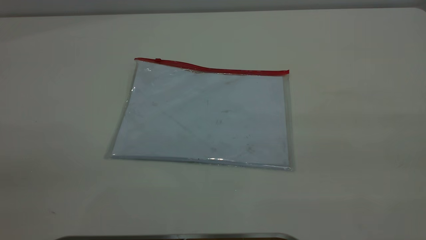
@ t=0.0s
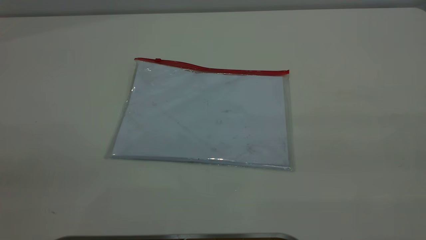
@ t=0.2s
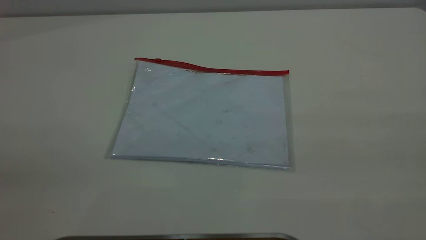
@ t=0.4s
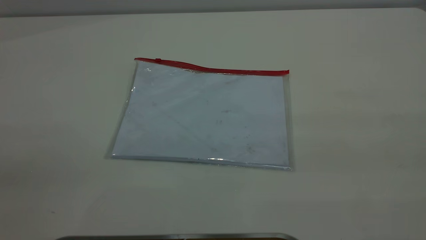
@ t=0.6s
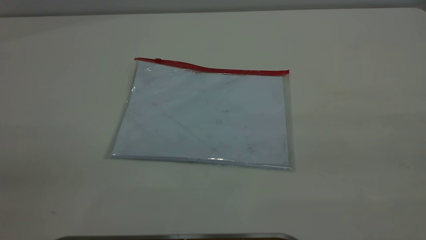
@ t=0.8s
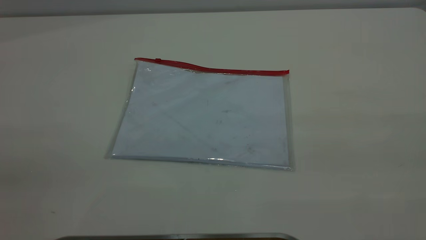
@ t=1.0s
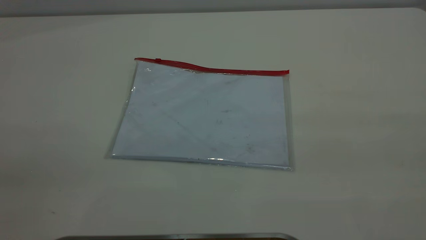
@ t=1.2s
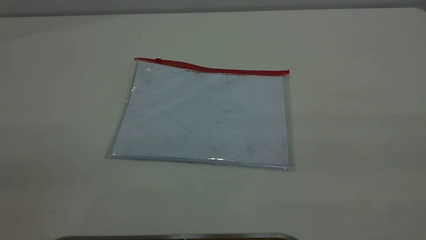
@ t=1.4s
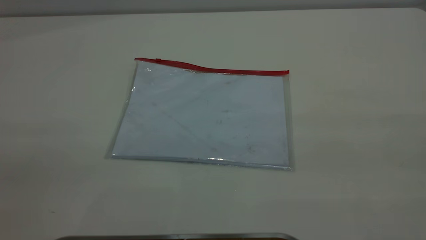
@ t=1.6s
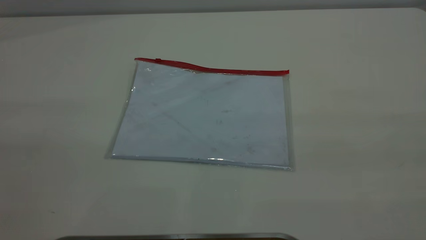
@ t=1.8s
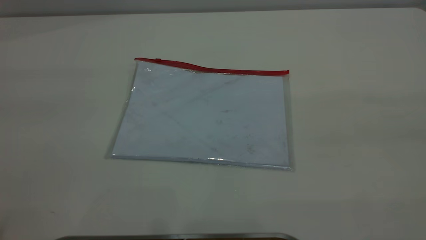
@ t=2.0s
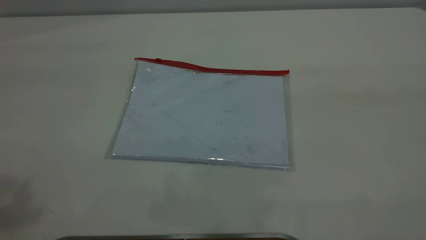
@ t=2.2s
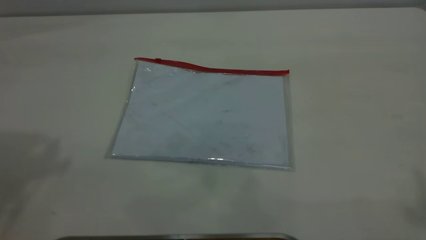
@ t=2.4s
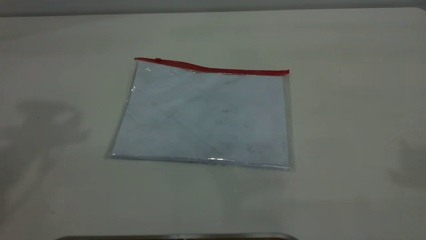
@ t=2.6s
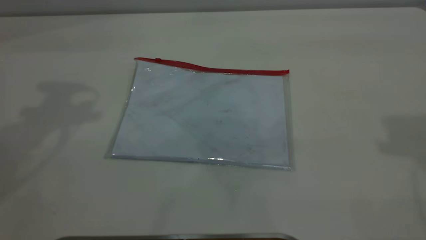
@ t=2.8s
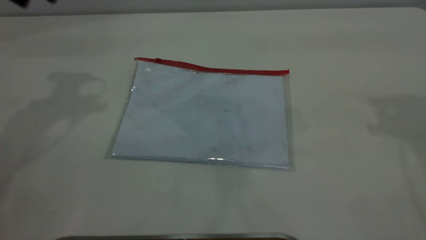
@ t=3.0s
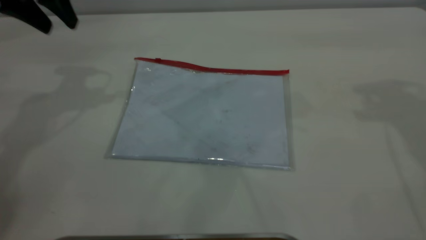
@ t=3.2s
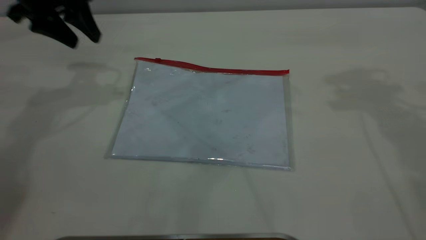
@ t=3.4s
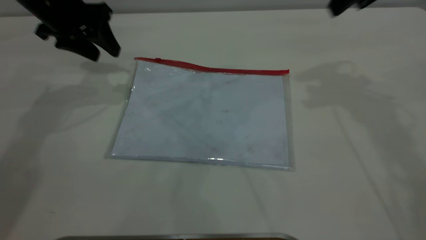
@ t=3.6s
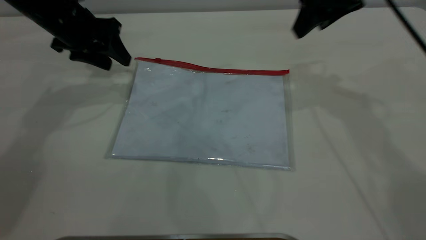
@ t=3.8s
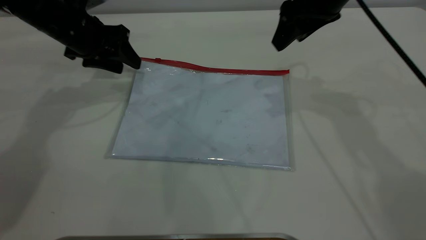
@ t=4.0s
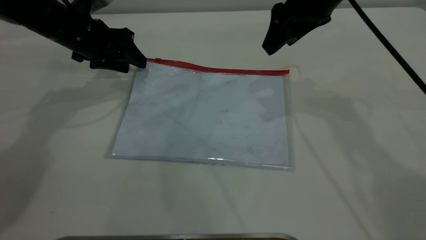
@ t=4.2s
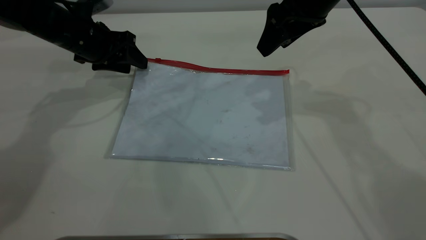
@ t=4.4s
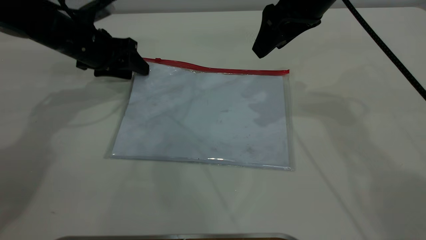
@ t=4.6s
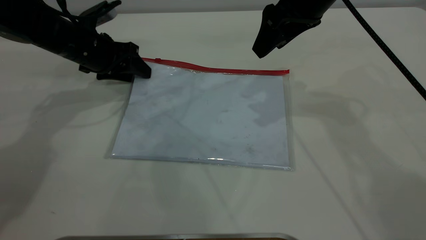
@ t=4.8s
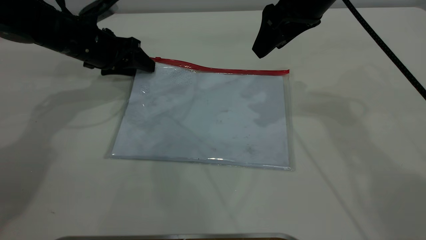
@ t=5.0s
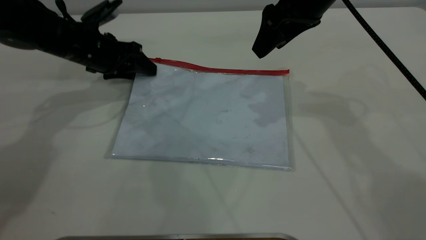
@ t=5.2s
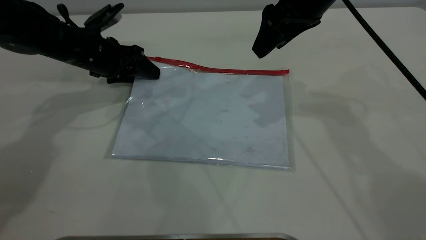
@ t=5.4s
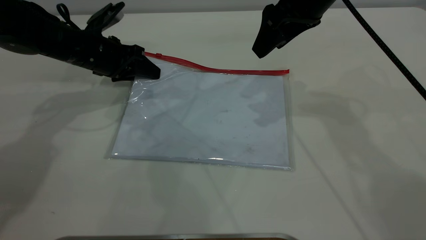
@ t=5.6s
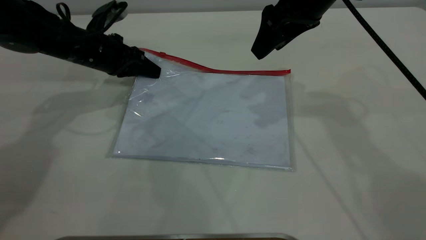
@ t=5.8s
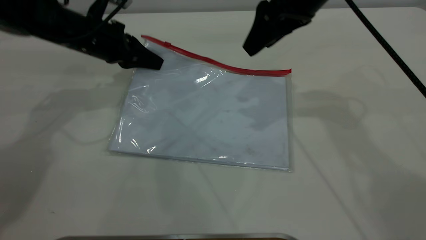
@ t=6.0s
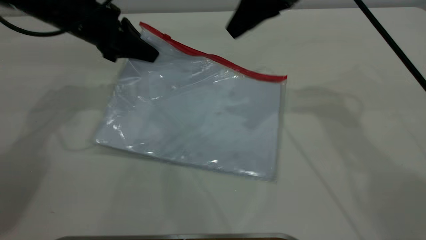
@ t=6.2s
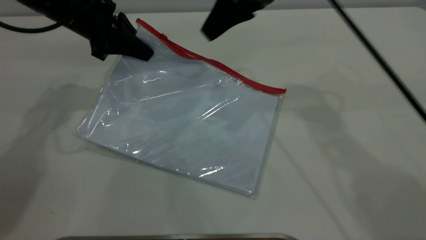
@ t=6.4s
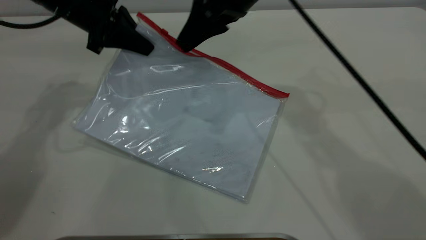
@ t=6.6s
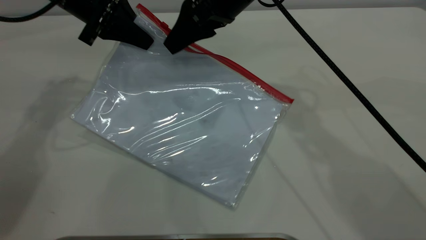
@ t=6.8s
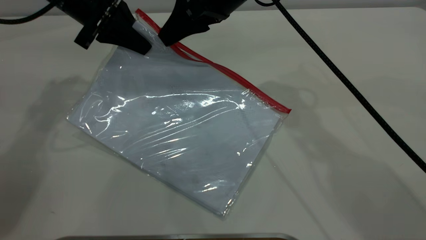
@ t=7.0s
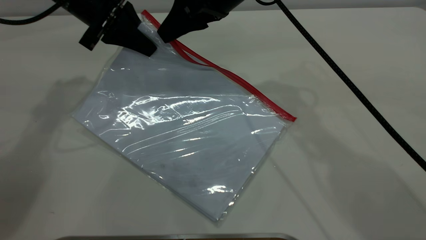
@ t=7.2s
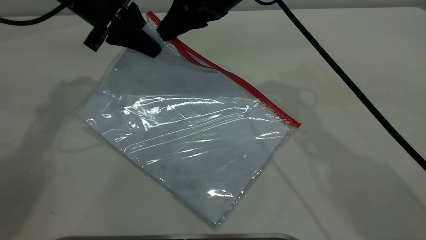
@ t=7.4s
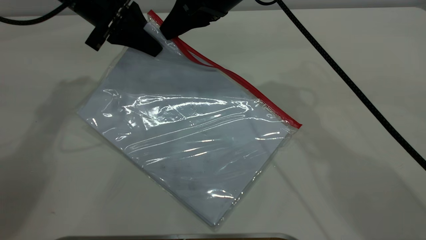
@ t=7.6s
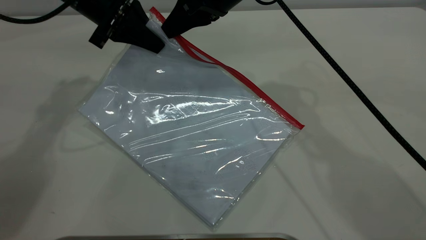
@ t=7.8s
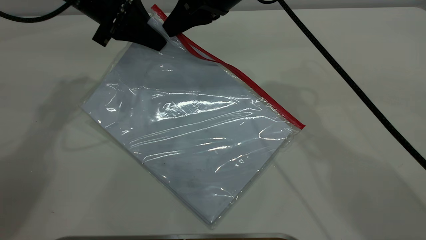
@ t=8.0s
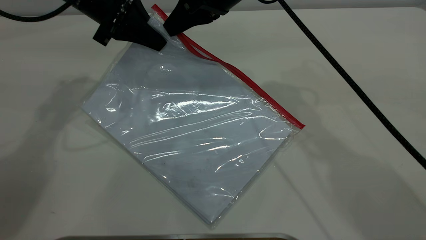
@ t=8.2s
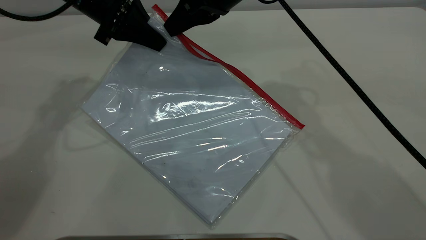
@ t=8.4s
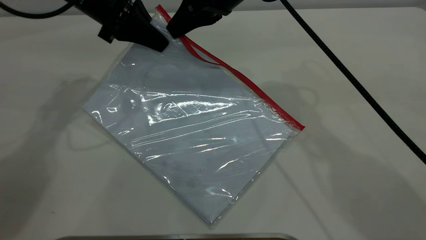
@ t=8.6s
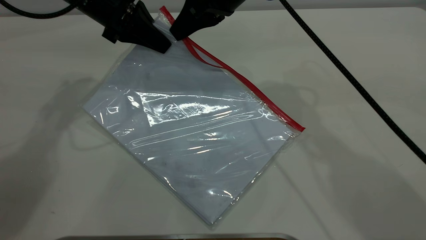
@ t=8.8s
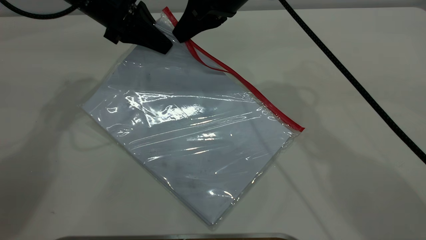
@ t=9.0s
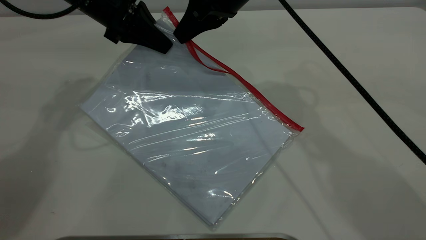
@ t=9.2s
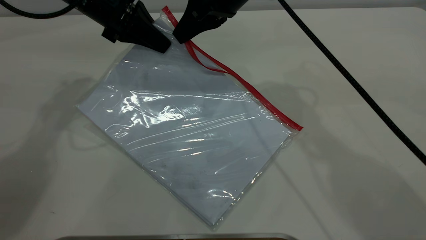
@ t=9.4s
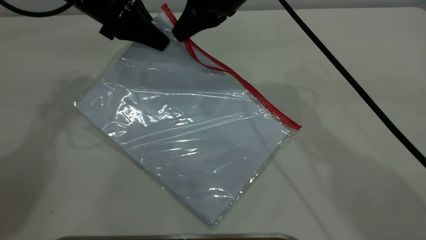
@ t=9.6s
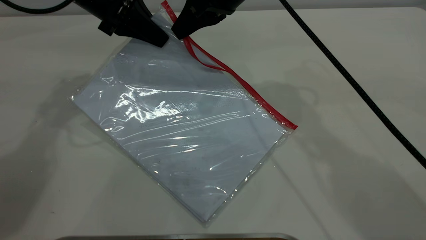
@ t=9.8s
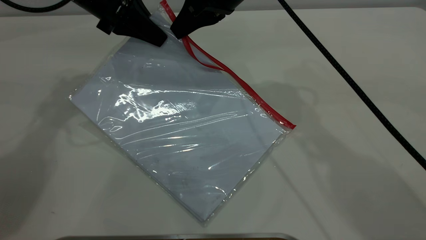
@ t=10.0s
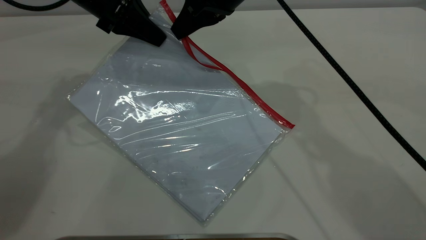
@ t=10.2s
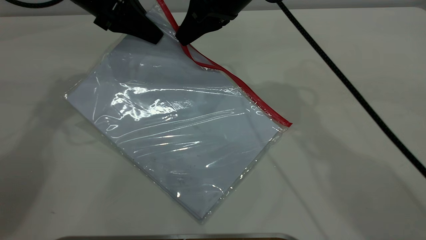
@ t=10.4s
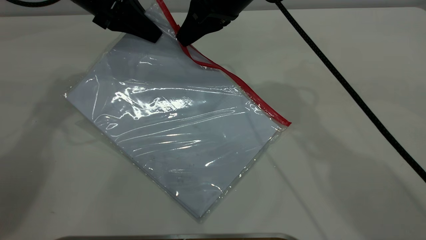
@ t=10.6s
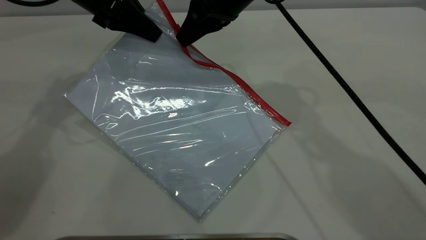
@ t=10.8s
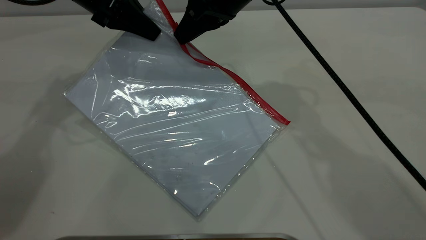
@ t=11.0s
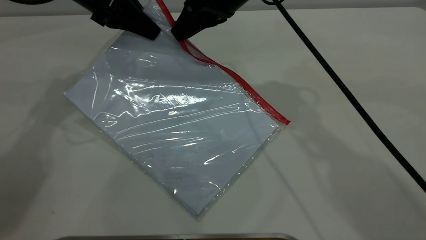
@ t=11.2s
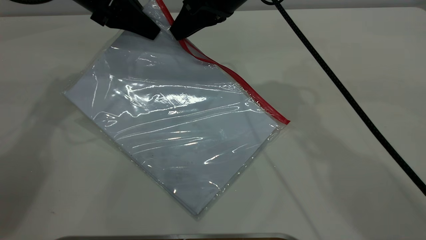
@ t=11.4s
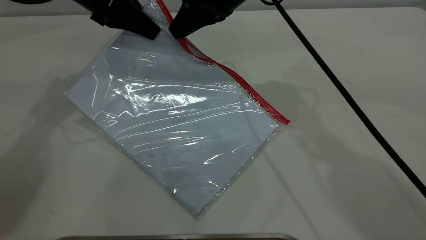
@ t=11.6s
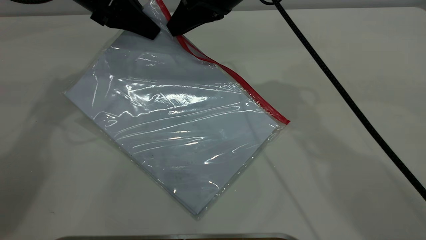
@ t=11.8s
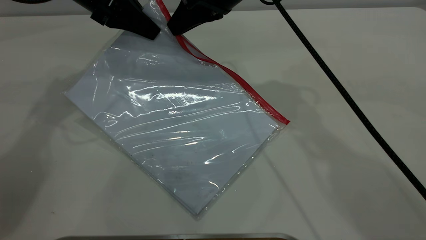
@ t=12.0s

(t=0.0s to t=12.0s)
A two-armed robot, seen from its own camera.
Step, t=0.0s - t=6.0s: Pick up the transparent plastic bag with the left gripper.
t=0.0s - t=1.6s: Neither gripper changes place.
t=3.0s - t=4.4s: The right gripper moves to the left, downward and forward, about 25 cm. The left gripper shifts about 20 cm downward.
t=4.4s - t=6.0s: The left gripper closes up.
t=6.0s - t=7.6s: The right gripper is displaced to the left by some 10 cm, and closes its fingers; the left gripper travels upward by approximately 5 cm.
t=7.6s - t=9.0s: The right gripper closes its fingers.
t=9.0s - t=12.0s: The grippers stay close to where they were, moving slightly.

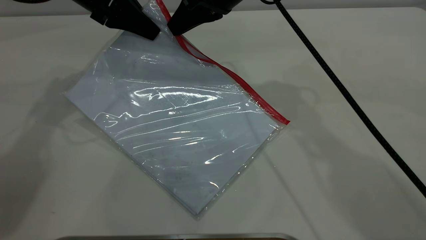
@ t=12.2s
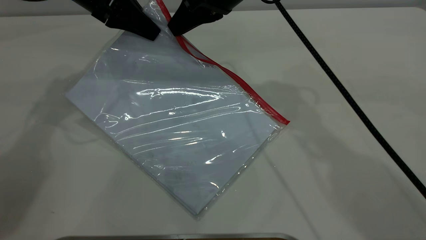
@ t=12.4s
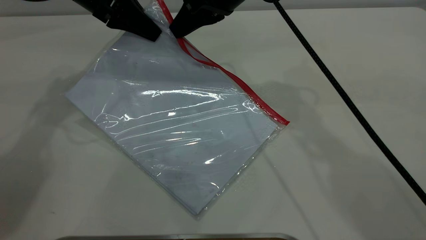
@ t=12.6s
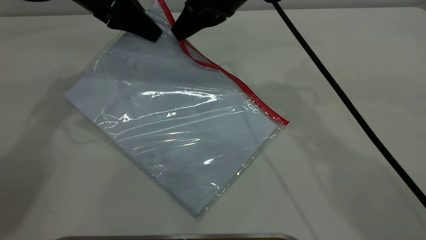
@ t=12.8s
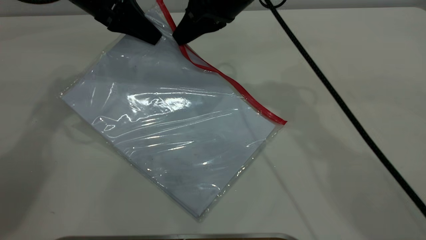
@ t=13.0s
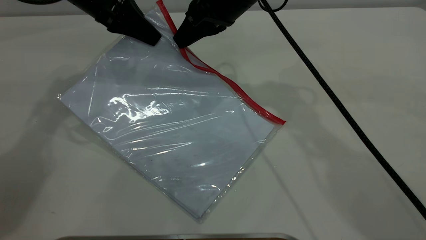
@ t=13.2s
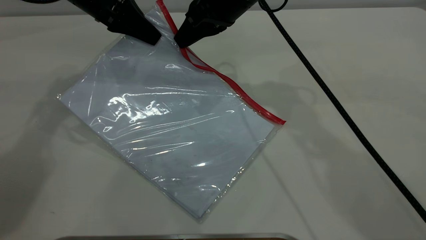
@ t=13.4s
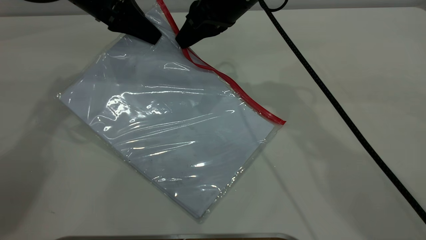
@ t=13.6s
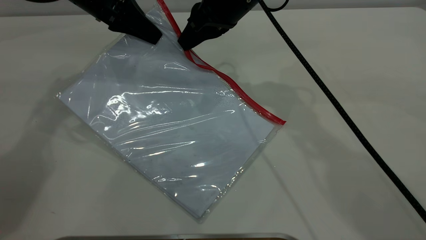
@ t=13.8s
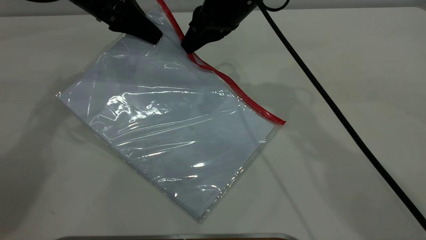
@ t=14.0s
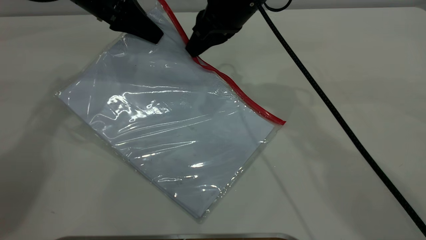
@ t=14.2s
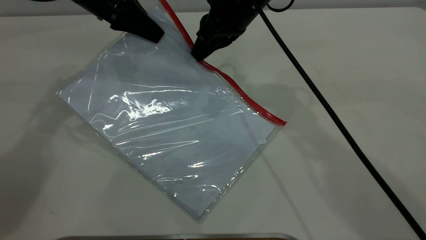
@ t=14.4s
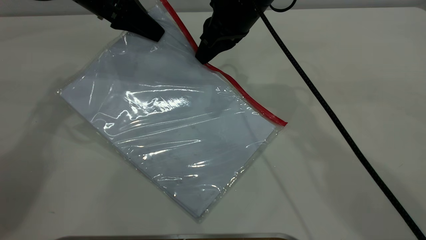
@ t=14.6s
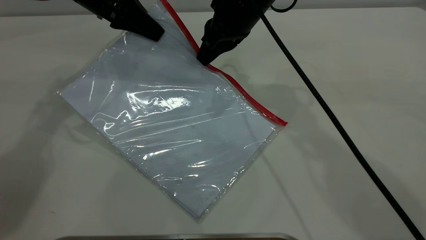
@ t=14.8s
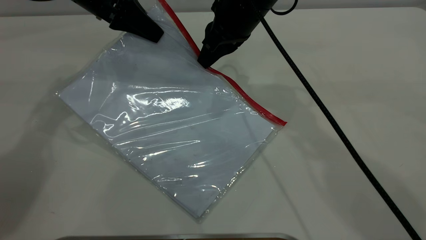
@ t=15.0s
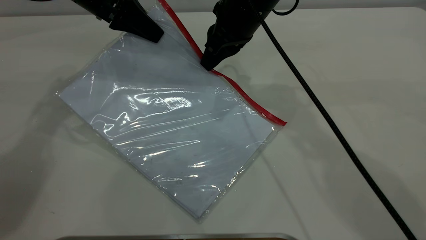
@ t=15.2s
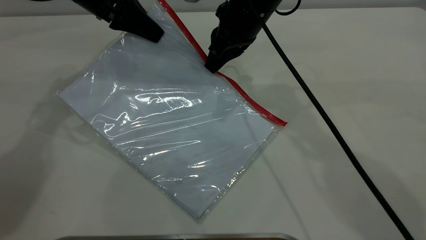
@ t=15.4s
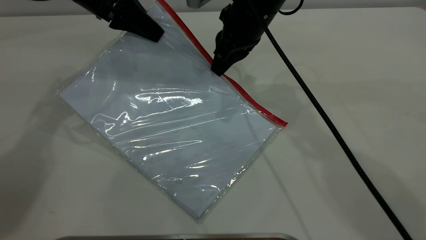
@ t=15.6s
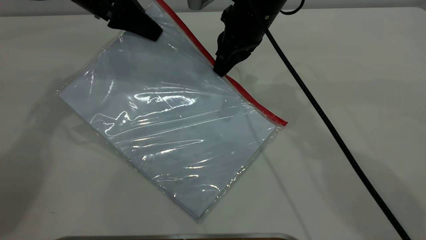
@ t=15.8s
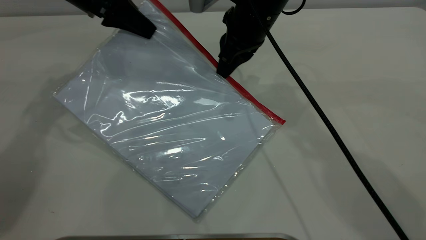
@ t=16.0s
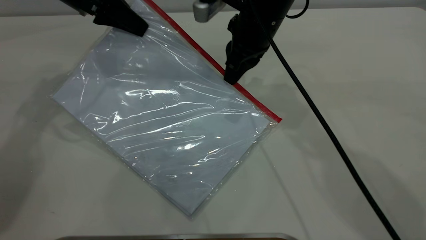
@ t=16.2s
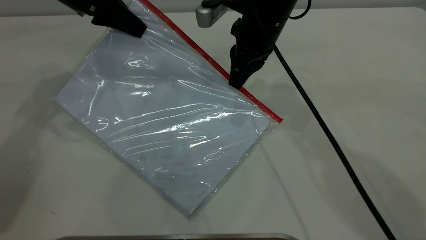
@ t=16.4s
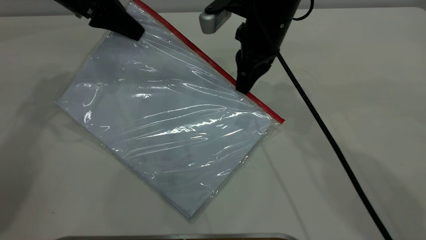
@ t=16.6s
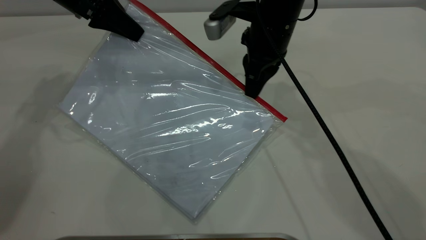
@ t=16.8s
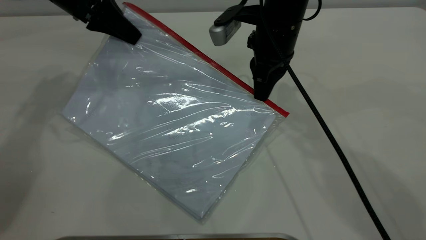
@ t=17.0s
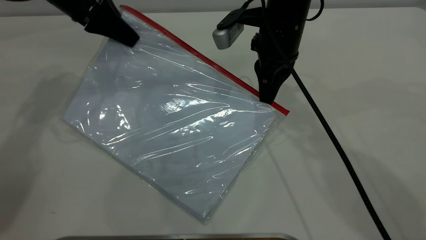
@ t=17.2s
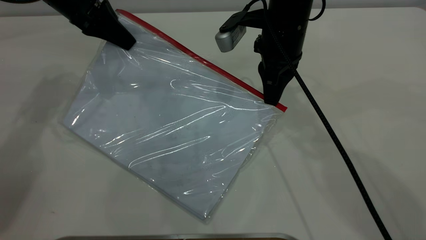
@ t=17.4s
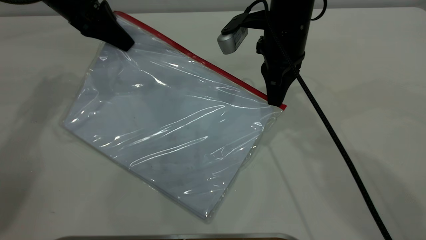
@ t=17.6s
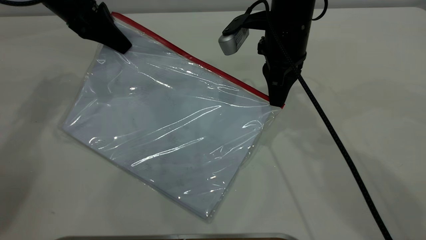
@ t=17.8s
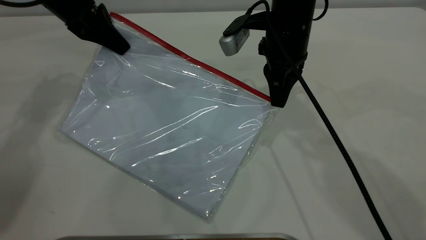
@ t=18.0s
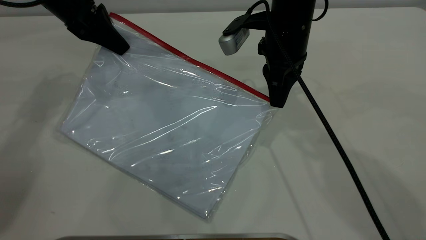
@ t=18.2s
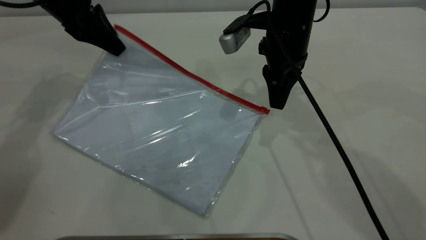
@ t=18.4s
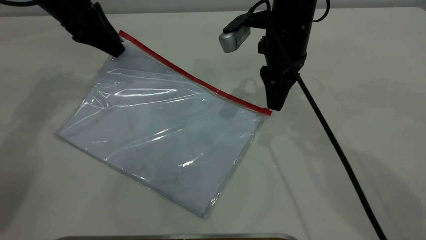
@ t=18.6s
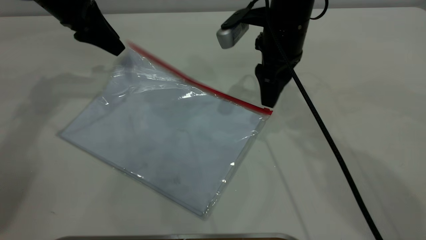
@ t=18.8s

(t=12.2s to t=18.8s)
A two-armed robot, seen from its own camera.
Step, t=12.2s - t=18.2s: Pulling up the zipper on the transparent plastic bag with the right gripper to close it.
t=12.2s - t=13.8s: The grippers stay close to where they were, moving slightly.
t=13.8s - t=15.4s: The grippers stay close to where they were, moving slightly.
t=17.2s - t=18.8s: The right gripper opens; the left gripper opens.
